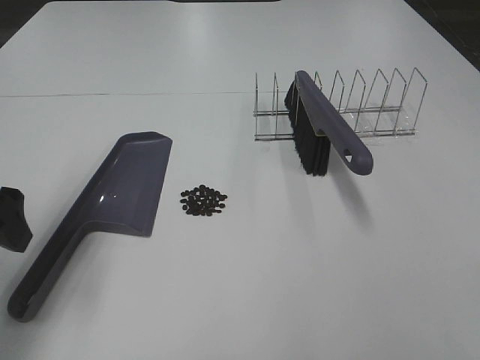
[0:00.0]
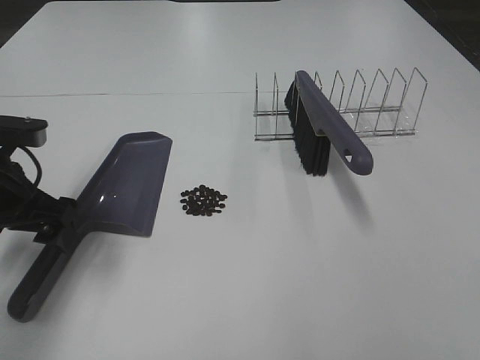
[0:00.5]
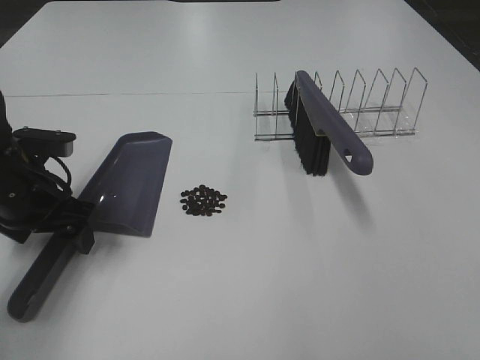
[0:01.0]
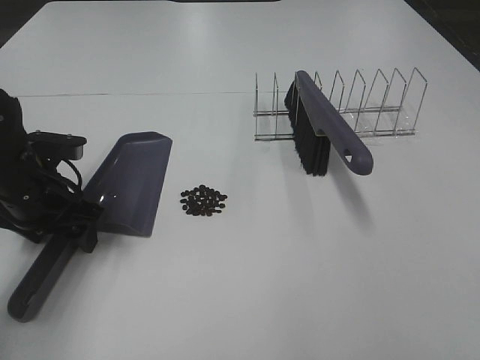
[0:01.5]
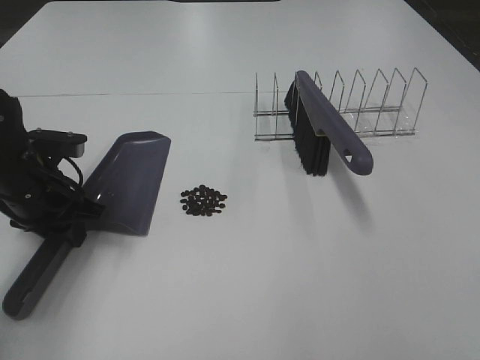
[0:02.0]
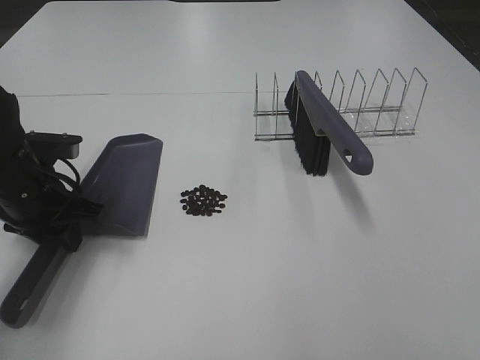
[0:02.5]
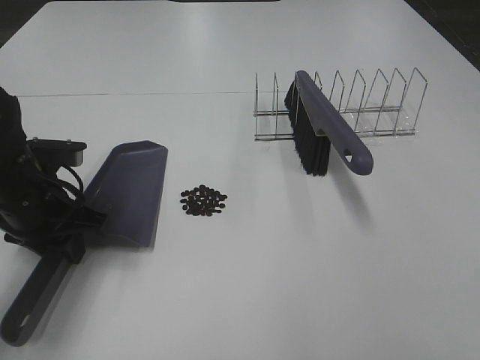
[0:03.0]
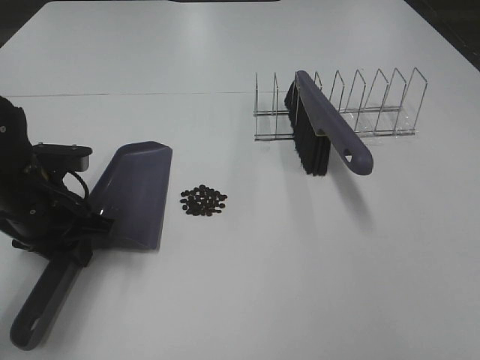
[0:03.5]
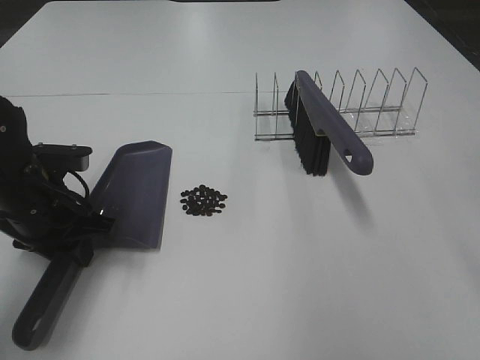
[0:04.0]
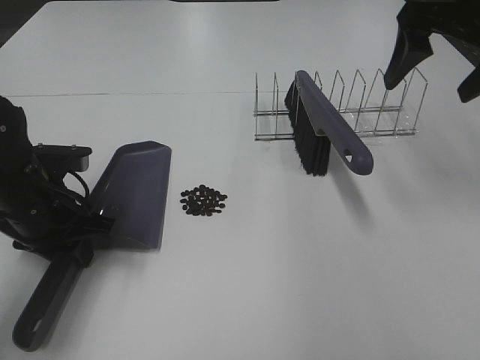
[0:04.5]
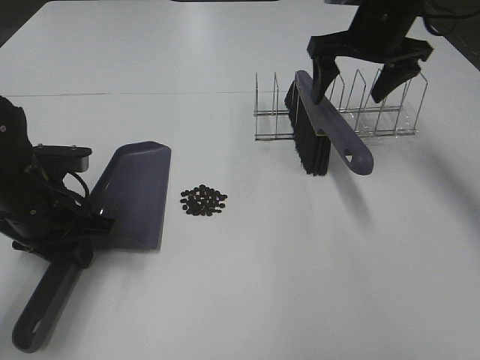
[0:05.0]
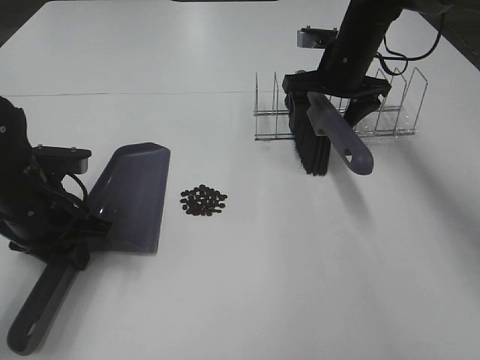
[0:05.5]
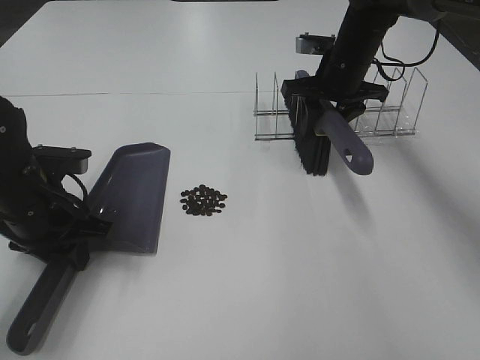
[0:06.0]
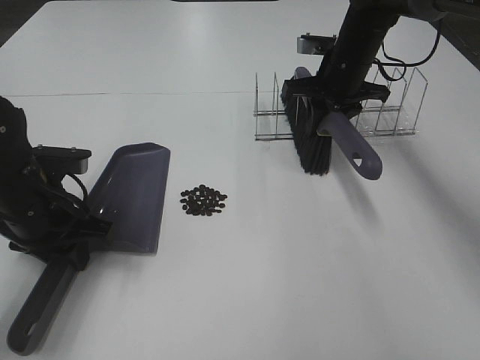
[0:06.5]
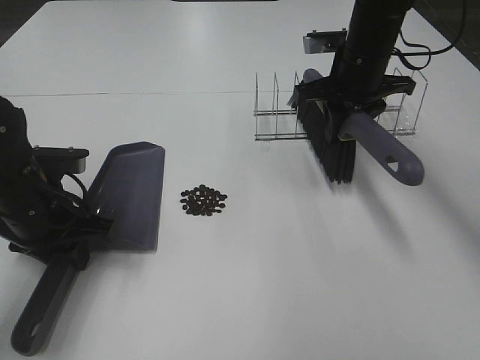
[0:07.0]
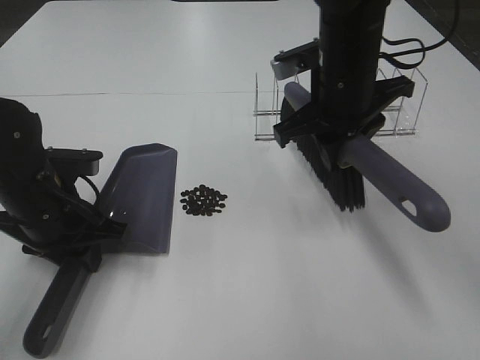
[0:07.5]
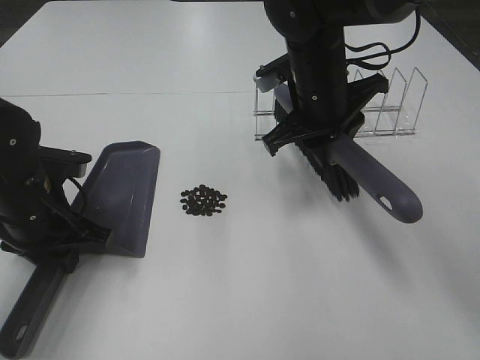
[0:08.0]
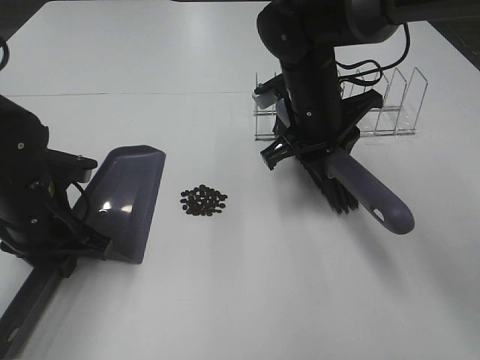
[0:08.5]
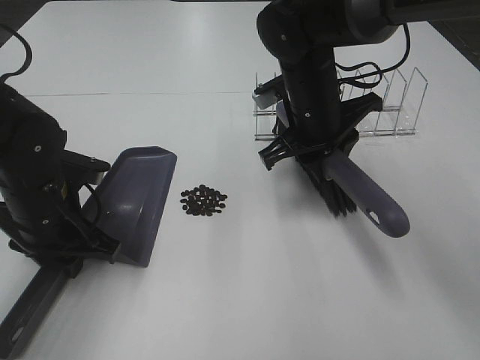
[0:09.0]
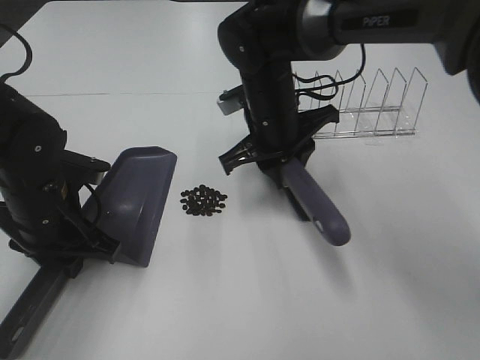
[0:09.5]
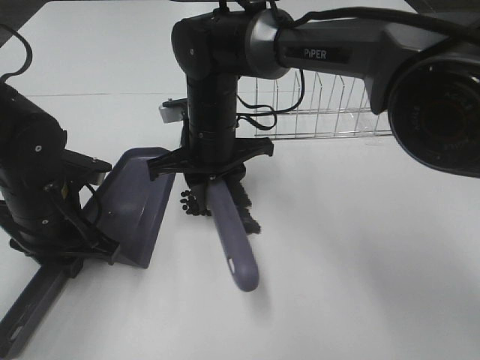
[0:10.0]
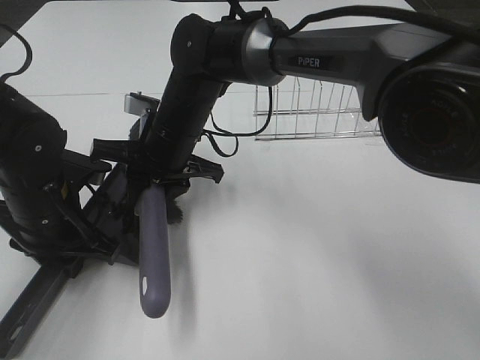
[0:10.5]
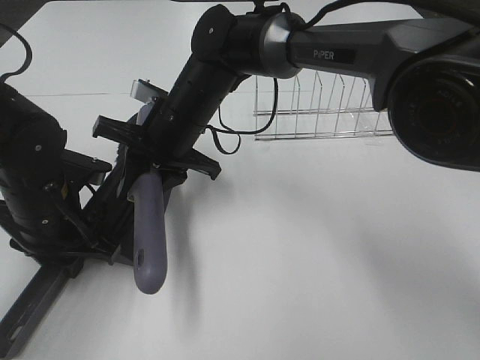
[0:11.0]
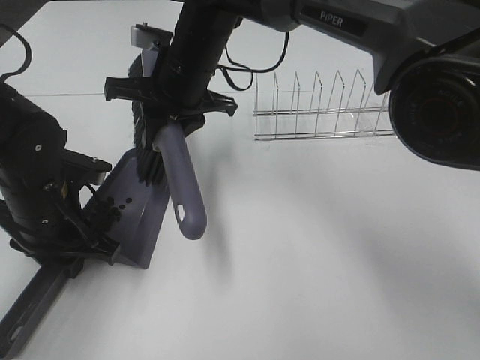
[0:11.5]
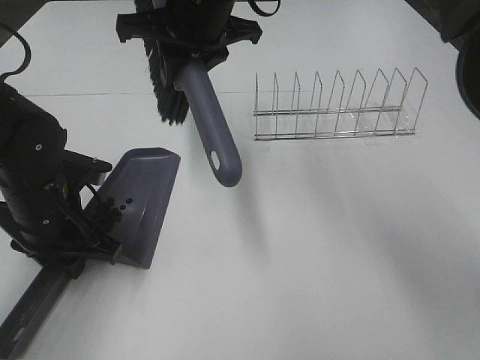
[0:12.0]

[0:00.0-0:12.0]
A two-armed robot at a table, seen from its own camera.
Task of the whole recording: Sweep Coffee Bean.
Step, 0:00.0 to 0:02.0: Left hand: grab the dustpan.
Step, 0:03.5 to 0:06.0: Right hand:grab the broom.
Step, 0:06.5 to 0:11.0: Right hand:sweep the coffee beans into the dustpan.
0:00.0 to 0:02.0: The left gripper goes approximately 15 cm downward and forward, and closes its fingers.
0:04.0 to 0:06.0: The right gripper is displaced forward and downward by roughly 35 cm, and closes its fingers.
0:06.0 to 0:08.0: The right gripper shifts roughly 15 cm backward and to the left.
0:08.0 to 0:10.0: The right gripper is displaced to the left and downward by some 15 cm.
0:10.0 to 0:12.0: The right gripper goes some 15 cm upward.

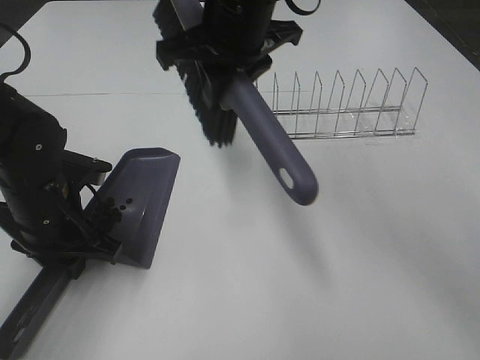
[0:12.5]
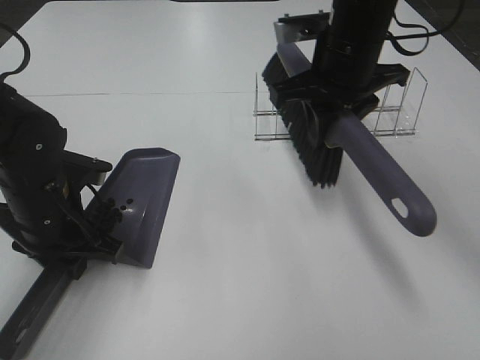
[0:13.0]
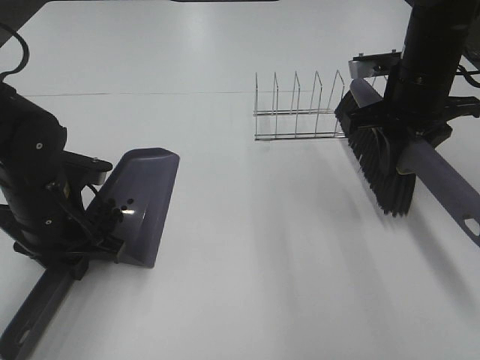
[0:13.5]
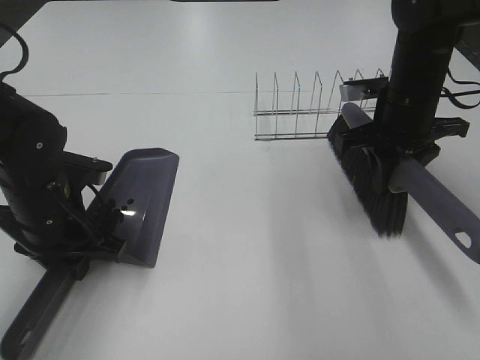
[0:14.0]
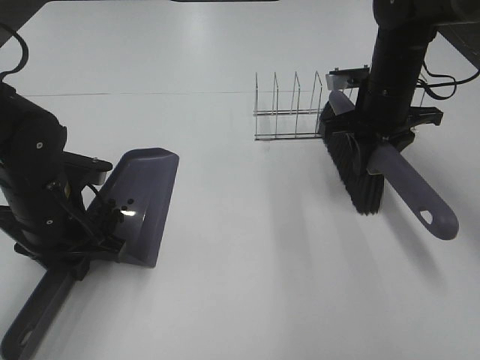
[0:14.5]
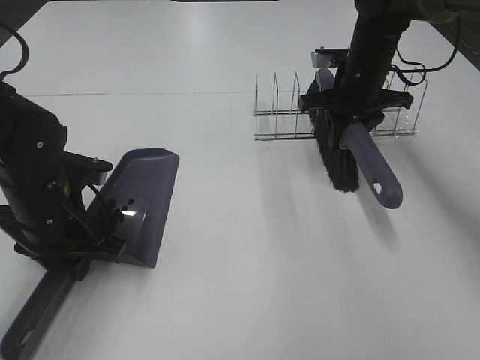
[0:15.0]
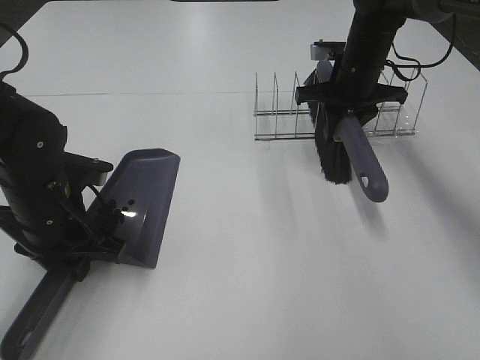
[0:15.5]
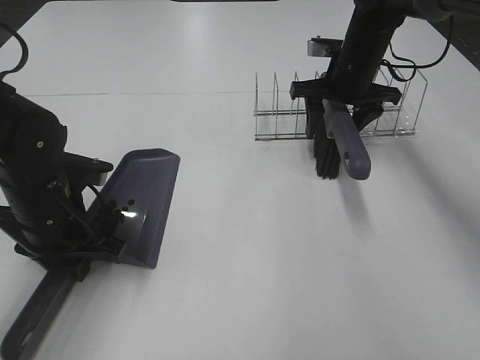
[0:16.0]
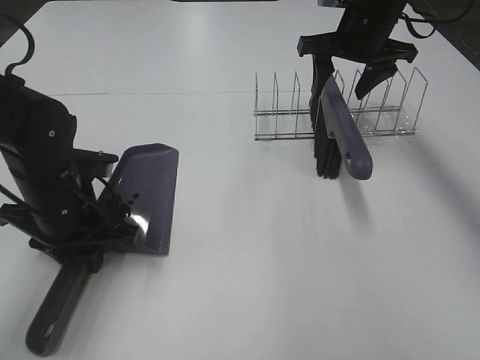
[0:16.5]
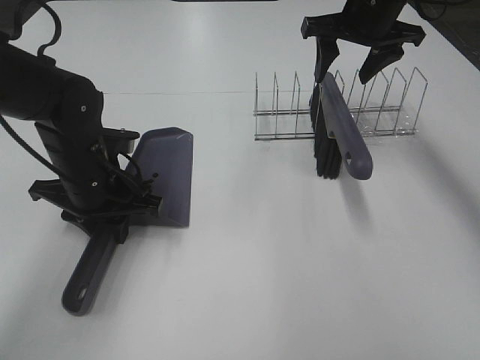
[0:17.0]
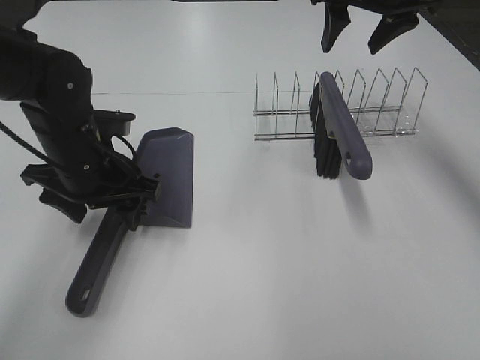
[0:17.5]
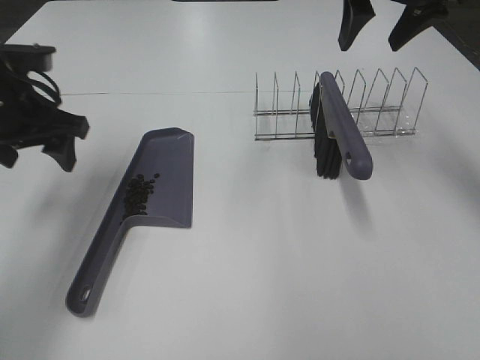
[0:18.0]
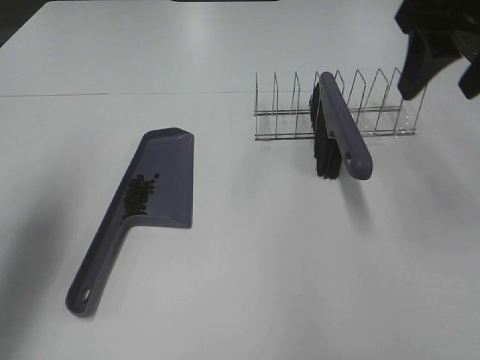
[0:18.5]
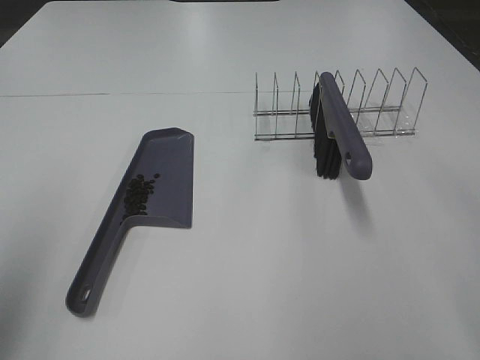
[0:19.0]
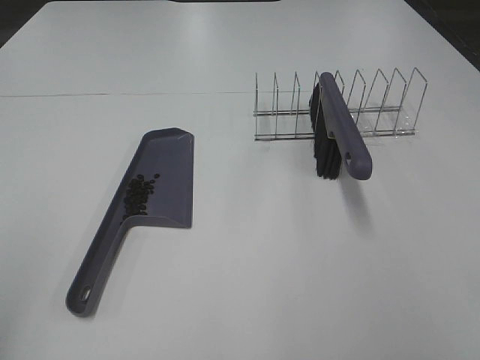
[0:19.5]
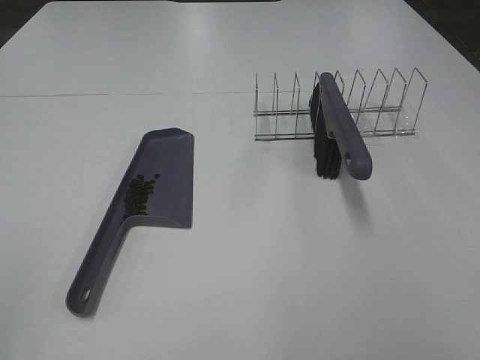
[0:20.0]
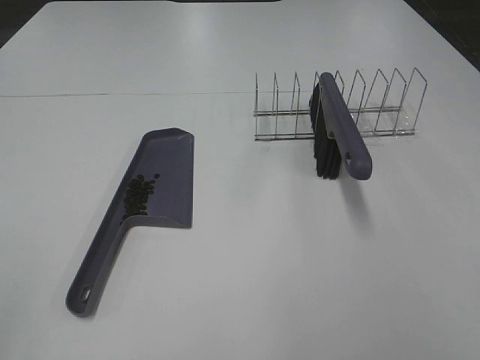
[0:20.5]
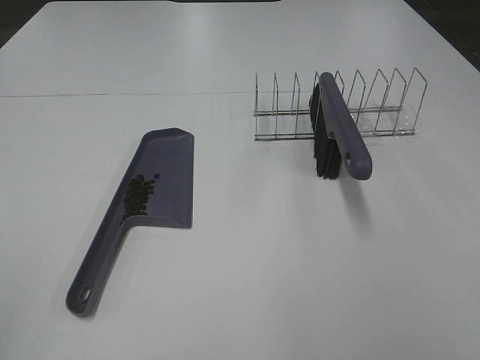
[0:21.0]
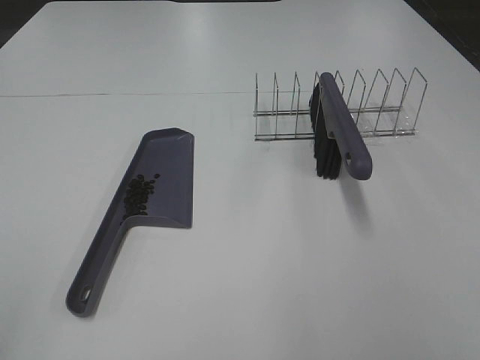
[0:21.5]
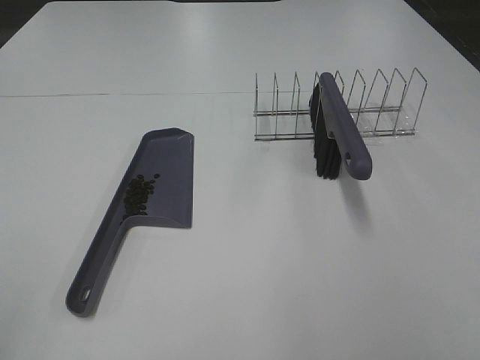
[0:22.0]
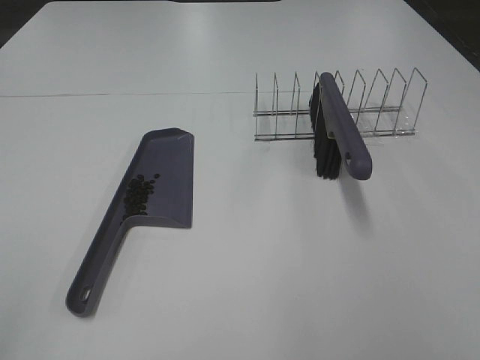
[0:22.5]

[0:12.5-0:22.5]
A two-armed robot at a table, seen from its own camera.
Task of the whole recording: Sweep Coffee Bean.
Step, 0:12.5 to 0:16.0: Right hand:place the broom on the rack.
Step, 0:16.5 to 0:17.0: Left hand:place the dustpan on the table.
0:12.5 to 0:14.5: The right gripper is displaced to the right and downward by roughly 20 cm.
0:14.5 to 0:16.5: The right gripper moves upward and forward, some 10 cm, and opens.
0:16.5 to 0:18.5: The left gripper goes about 20 cm upward and to the left, and opens. Meanwhile the right gripper heads backward and upward, covering some 20 cm.
0:18.5 to 0:20.5: Both grippers travel together backward, approximately 30 cm.
